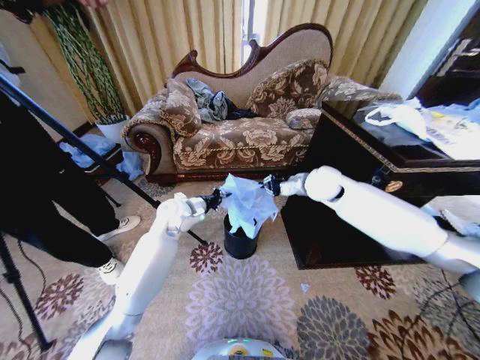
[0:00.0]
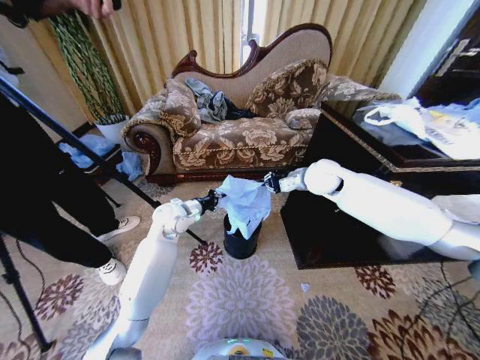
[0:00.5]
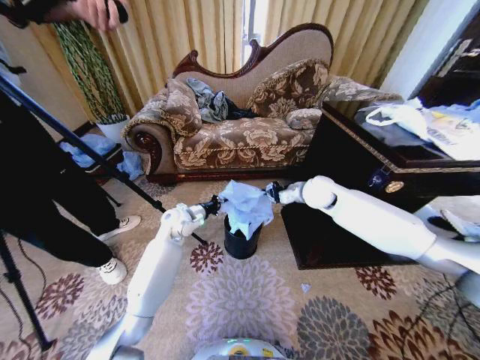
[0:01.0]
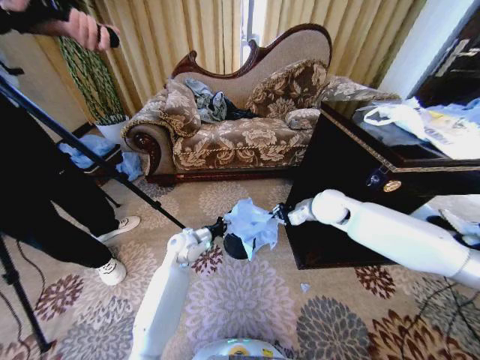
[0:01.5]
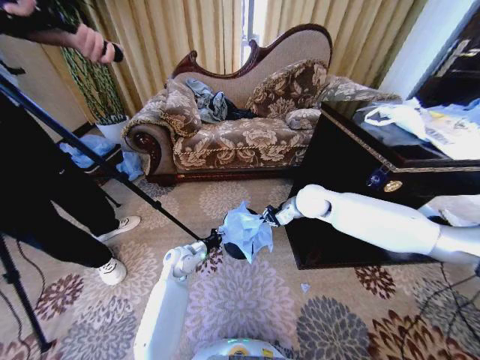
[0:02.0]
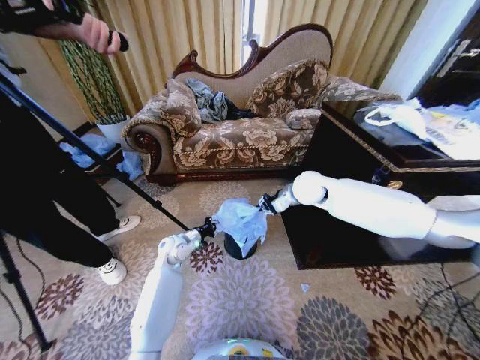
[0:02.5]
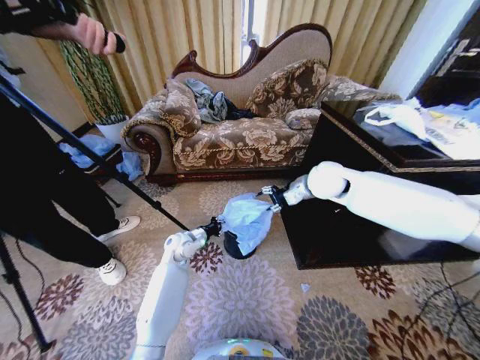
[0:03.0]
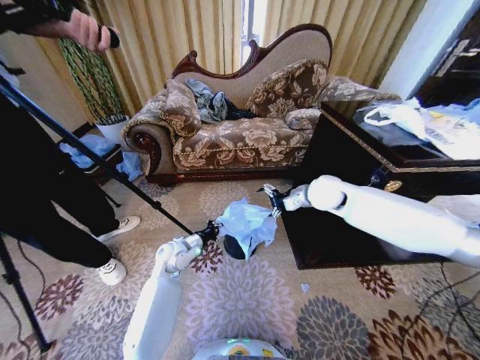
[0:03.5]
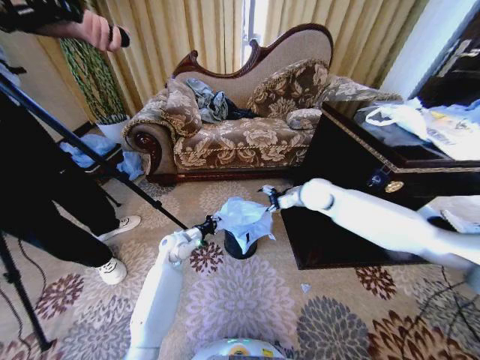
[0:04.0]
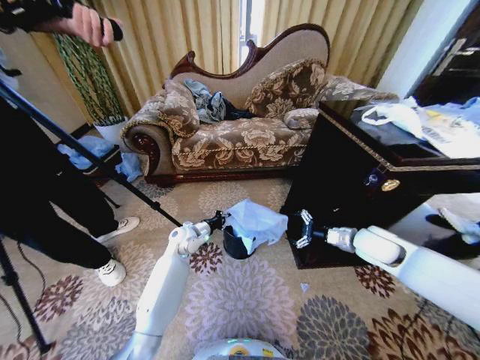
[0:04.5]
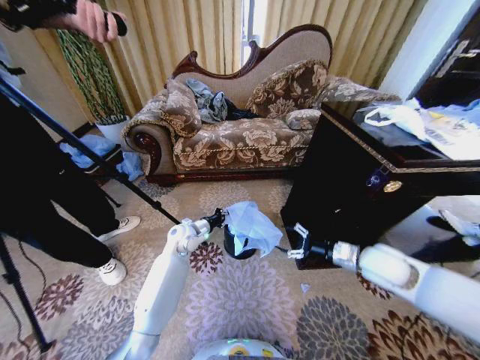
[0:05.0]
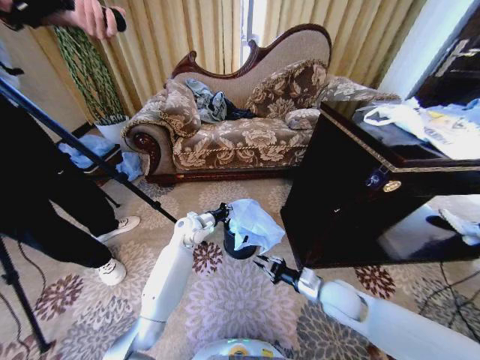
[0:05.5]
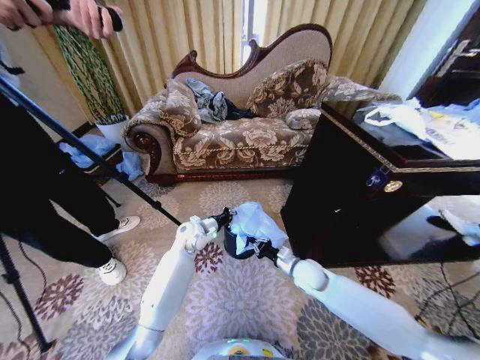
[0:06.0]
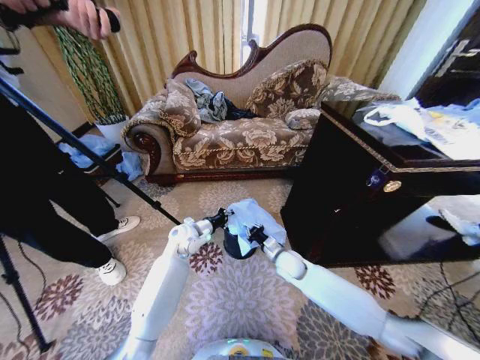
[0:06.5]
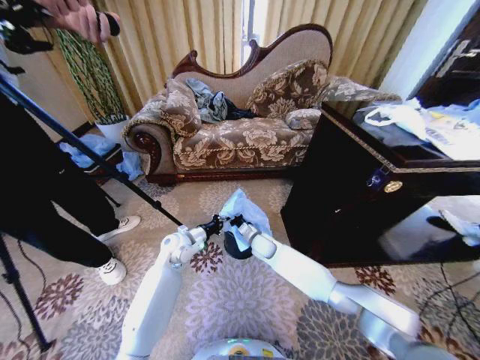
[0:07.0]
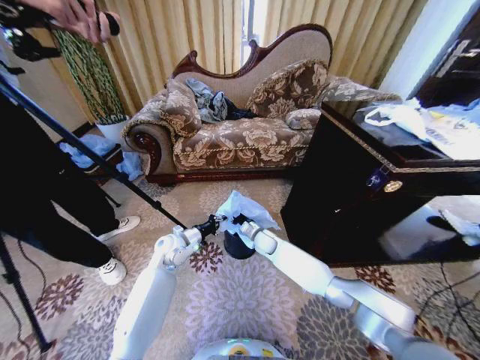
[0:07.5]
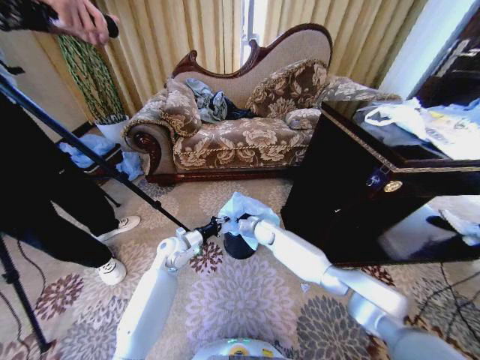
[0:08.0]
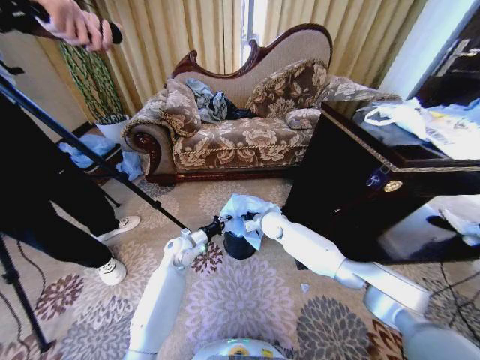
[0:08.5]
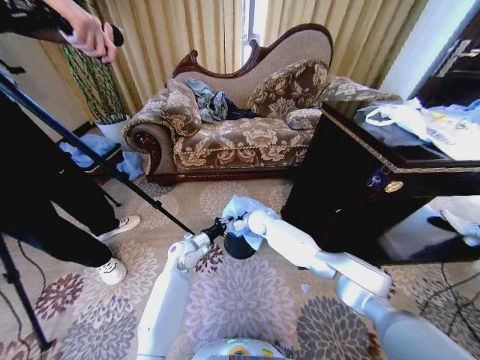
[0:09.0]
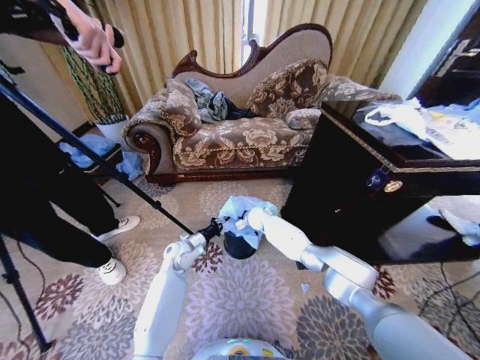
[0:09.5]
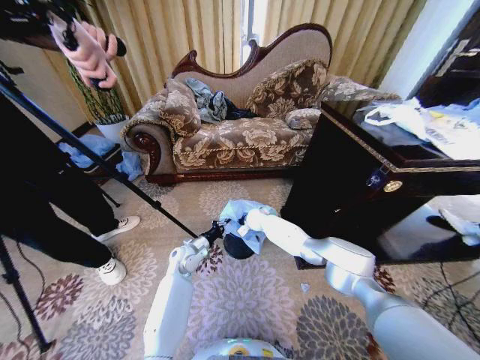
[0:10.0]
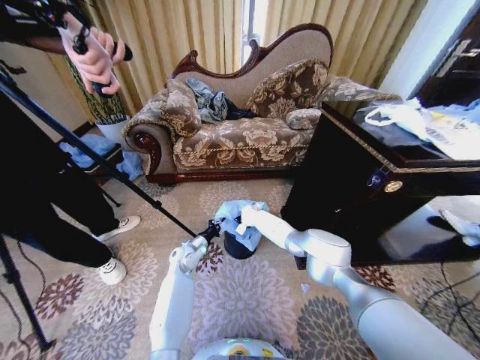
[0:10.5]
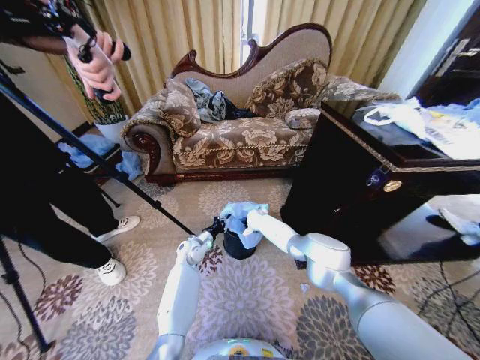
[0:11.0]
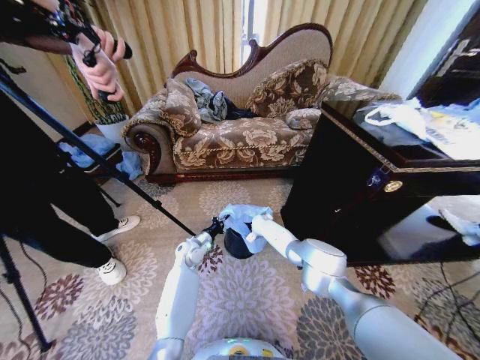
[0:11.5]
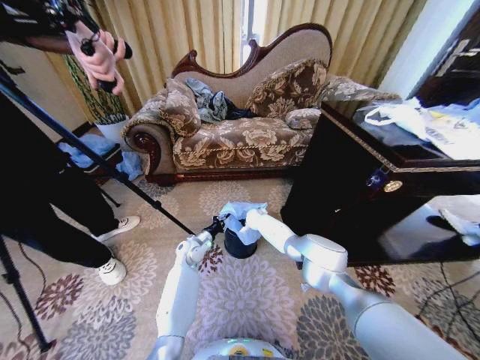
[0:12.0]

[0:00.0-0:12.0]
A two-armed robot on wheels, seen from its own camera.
Task of the whole recording: Place a garbage bag over the trash bin.
0:00.0 to 0:02.0: The right gripper travels downward by about 5 cm. The left gripper travels downward by approximately 15 cm.
0:02.0 to 0:04.0: The right gripper moves some 10 cm upward and comes back, and opens, while the left gripper swings forward and backward, about 5 cm each way, with 2 reversals.
0:04.0 to 0:06.0: The left gripper shifts roughly 5 cm to the right; the right gripper heads downward and backward, covering about 25 cm, and closes its fingers.
0:06.0 to 0:08.0: The right gripper travels forward and to the left by roughly 20 cm, while the left gripper travels to the left by approximately 5 cm.
0:08.0 to 0:10.0: The left gripper shifts about 5 cm downward. Meanwhile the right gripper heads forward, covering roughly 5 cm.

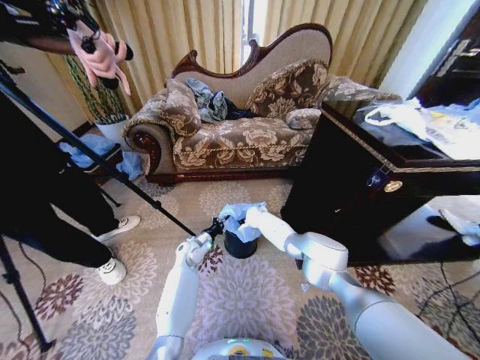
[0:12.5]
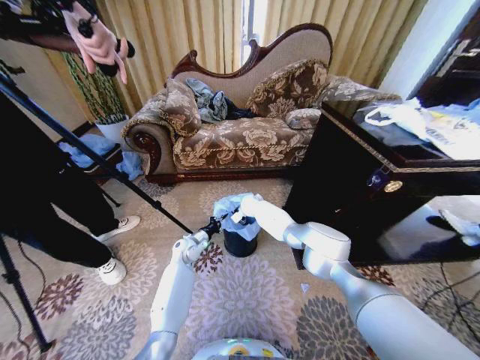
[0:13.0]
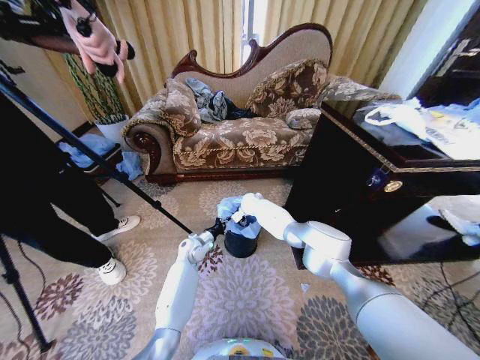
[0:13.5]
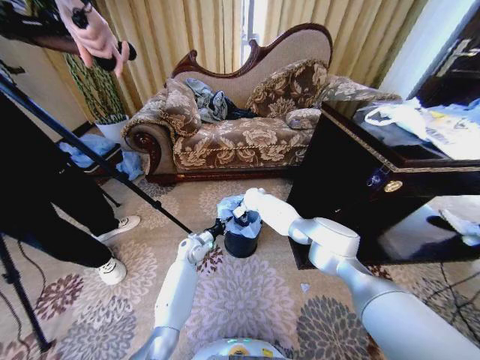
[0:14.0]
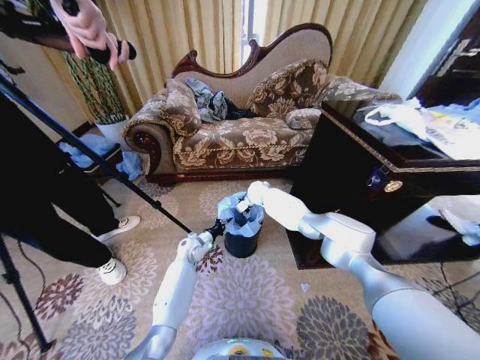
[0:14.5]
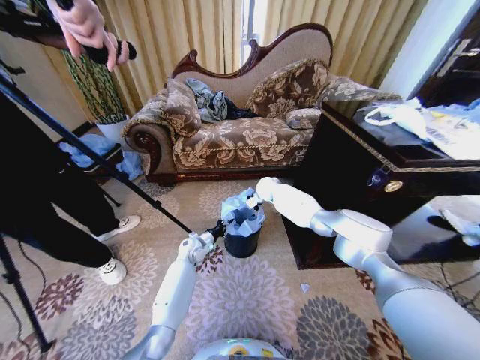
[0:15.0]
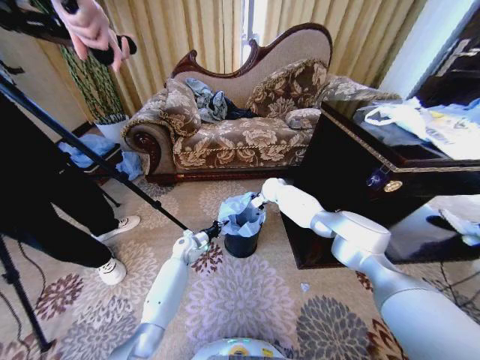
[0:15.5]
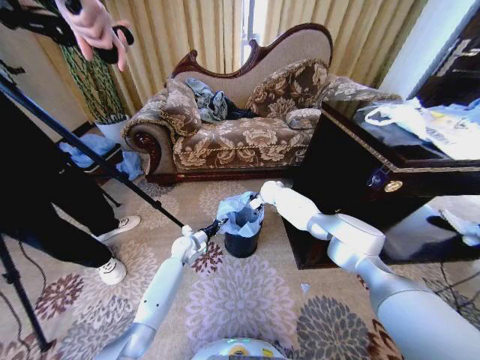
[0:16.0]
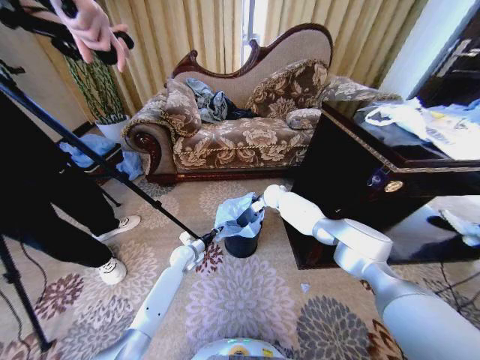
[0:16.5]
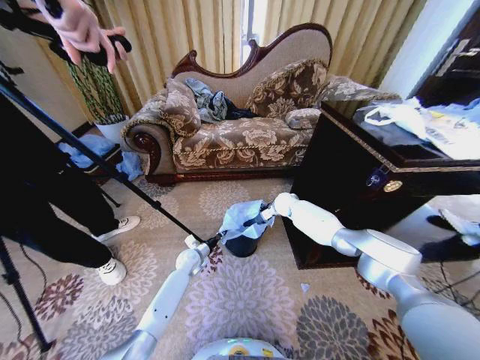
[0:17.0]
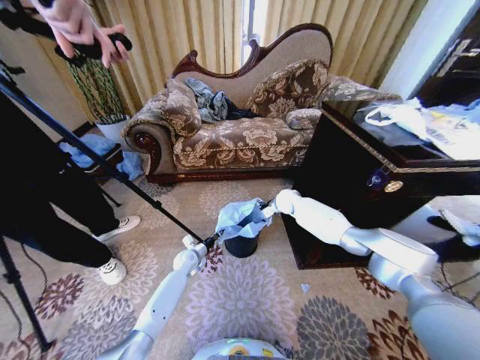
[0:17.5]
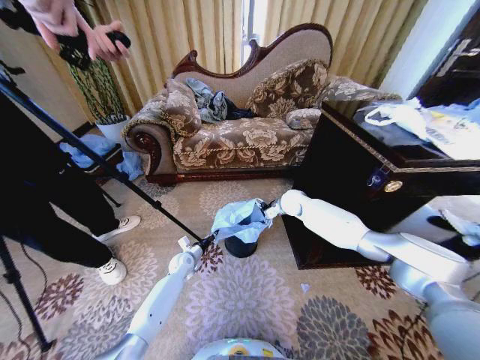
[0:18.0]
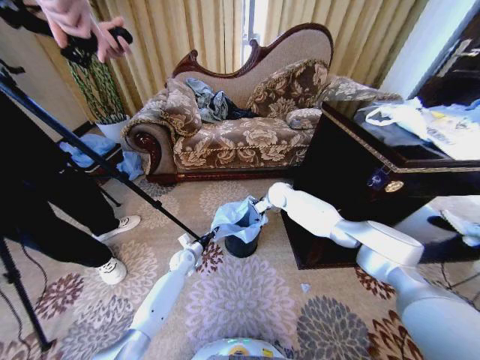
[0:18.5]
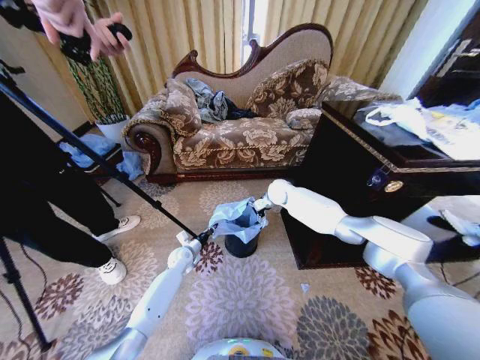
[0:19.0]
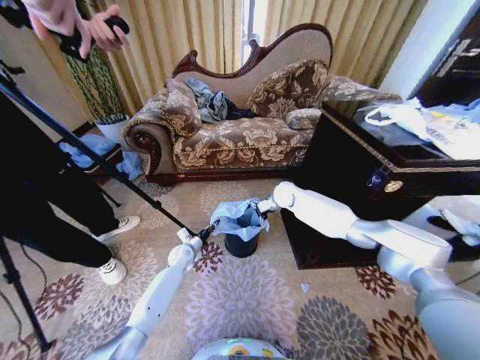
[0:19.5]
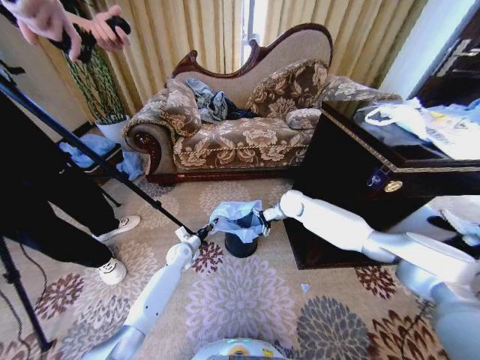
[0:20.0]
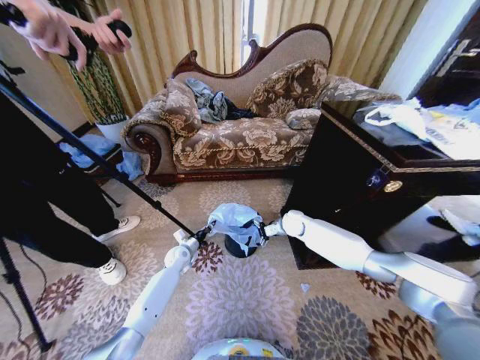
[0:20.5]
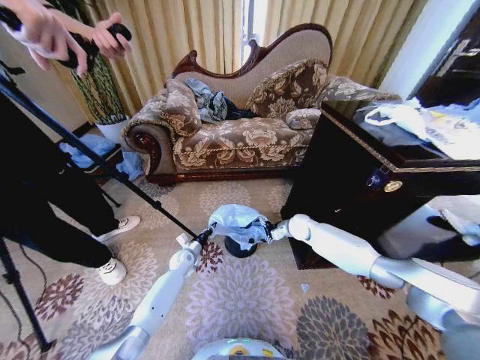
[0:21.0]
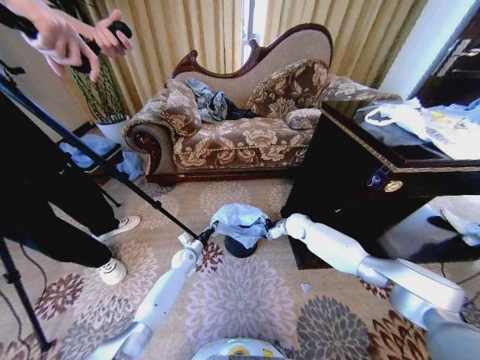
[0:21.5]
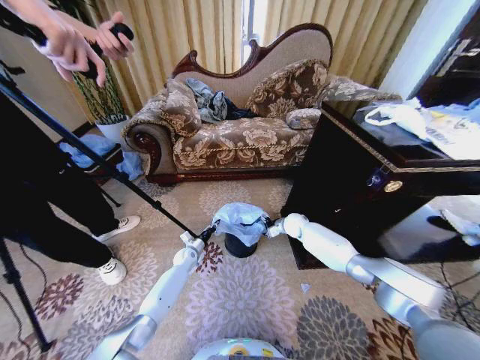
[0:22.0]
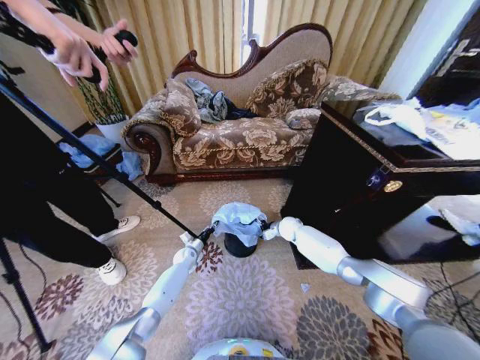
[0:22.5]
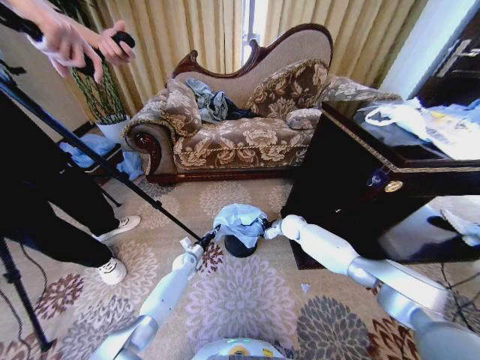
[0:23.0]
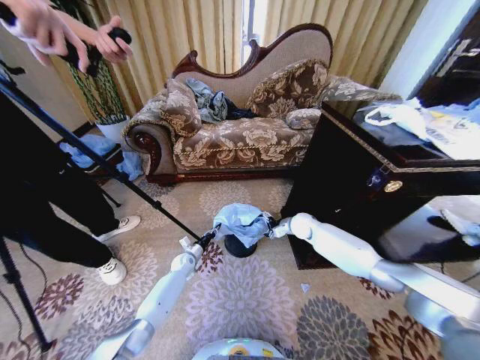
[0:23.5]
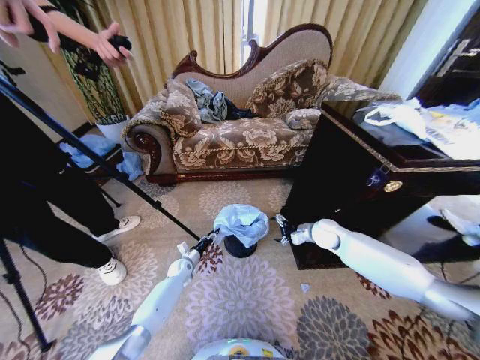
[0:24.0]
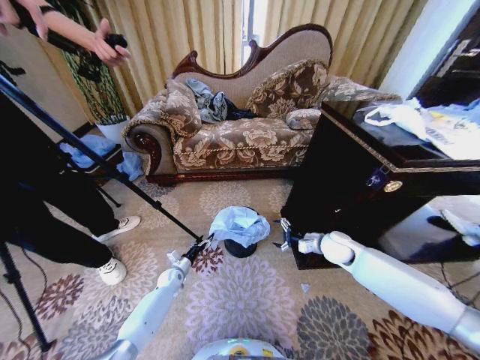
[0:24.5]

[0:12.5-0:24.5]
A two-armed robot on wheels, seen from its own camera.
Task of the whole recording: Place a garbage bag over the trash bin.
0:12.5 to 0:14.5: The right gripper is displaced upward by some 10 cm, and opens.
0:14.5 to 0:16.5: The right gripper heads to the right, covering about 5 cm.
0:18.5 to 0:20.5: The right gripper heads backward, downward and to the right, covering approximately 15 cm.
0:20.5 to 0:22.5: Both grippers travel together downward, about 5 cm.
0:22.5 to 0:24.5: The left gripper moves backward, approximately 10 cm, and opens up. Meanwhile the right gripper shifts roughly 20 cm backward, to the right and upward.

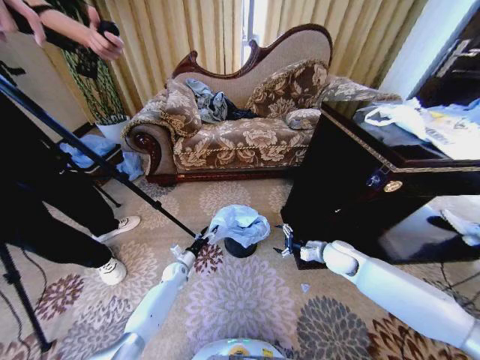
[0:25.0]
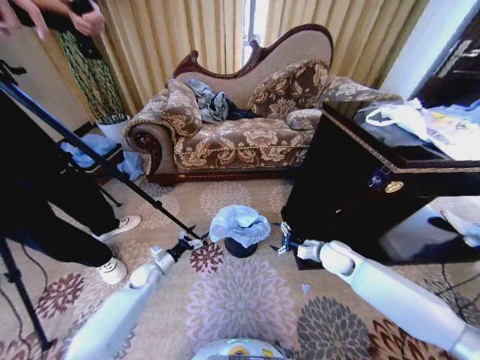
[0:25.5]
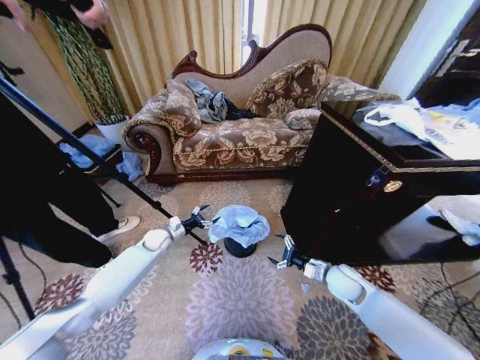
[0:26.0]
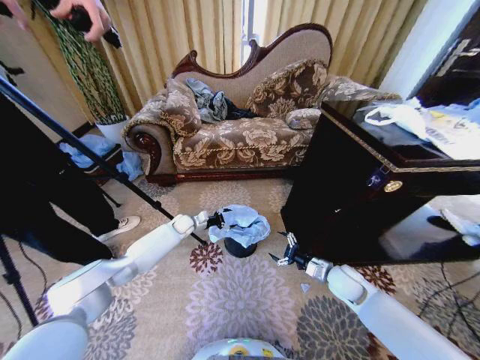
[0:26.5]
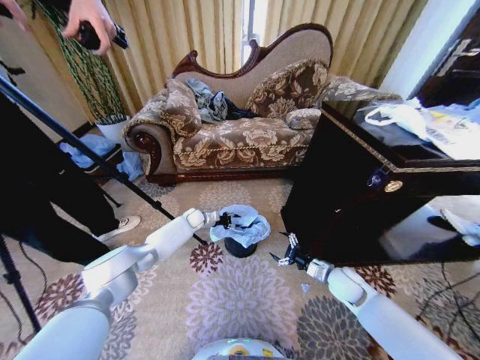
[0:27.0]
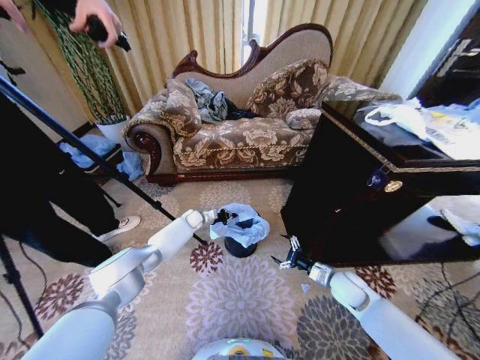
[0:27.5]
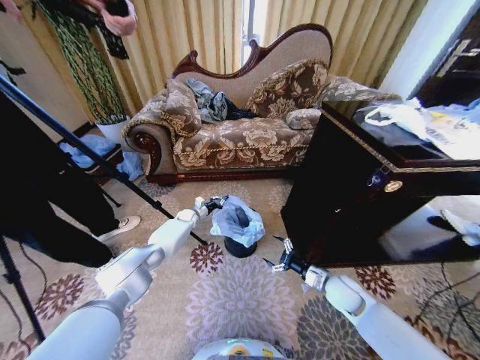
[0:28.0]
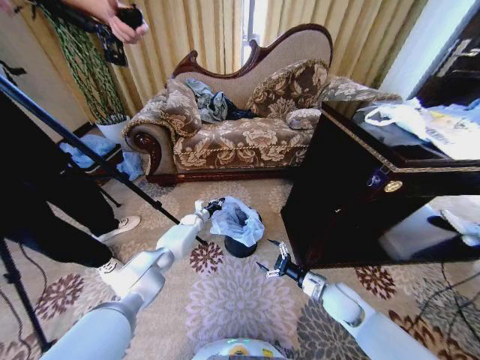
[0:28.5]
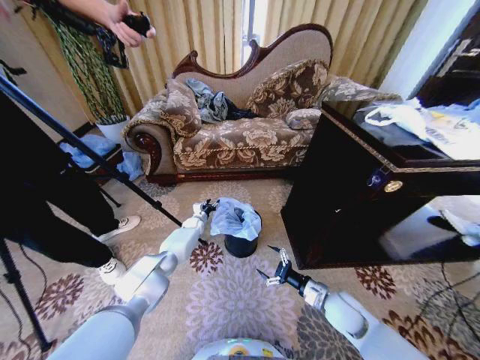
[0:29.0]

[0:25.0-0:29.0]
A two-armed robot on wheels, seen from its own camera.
Task of the whole recording: Place a garbage bag over the trash bin.
0:25.0 to 0:27.0: The right gripper is displaced backward by about 5 cm, while the left gripper travels forward and upward by approximately 25 cm.
0:27.0 to 0:29.0: The left gripper moves downward, approximately 5 cm, and closes, then reopens. Meanwhile the right gripper goes approximately 5 cm backward.
